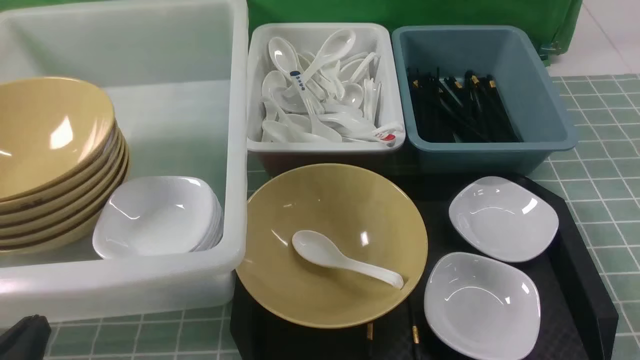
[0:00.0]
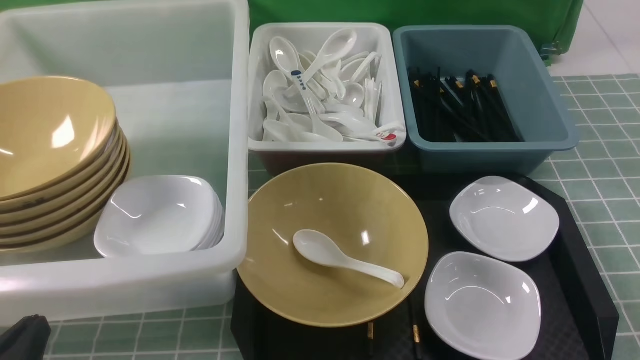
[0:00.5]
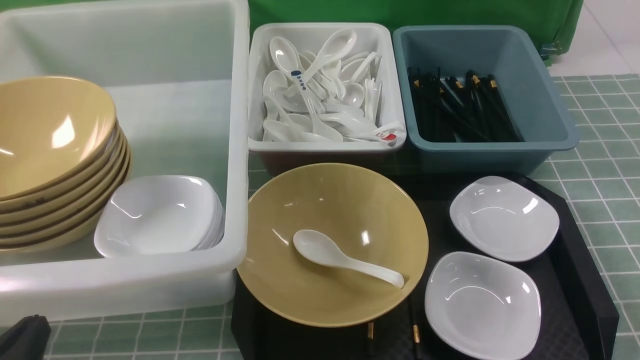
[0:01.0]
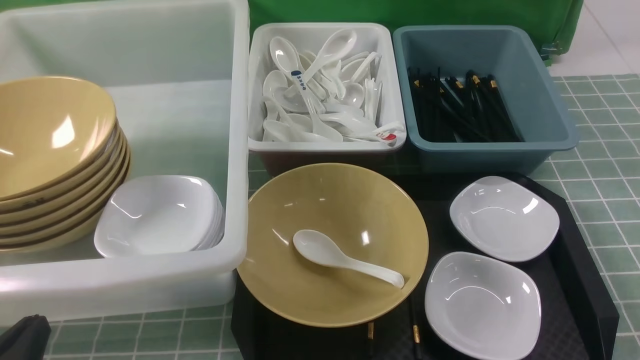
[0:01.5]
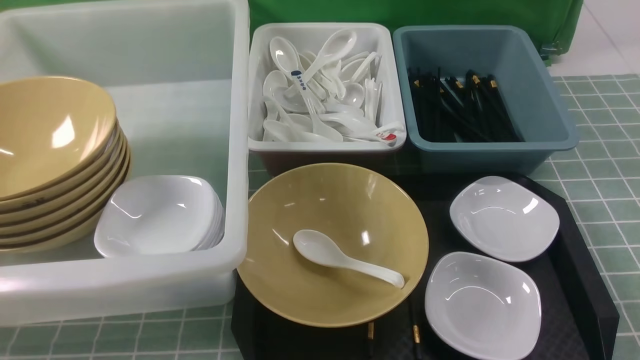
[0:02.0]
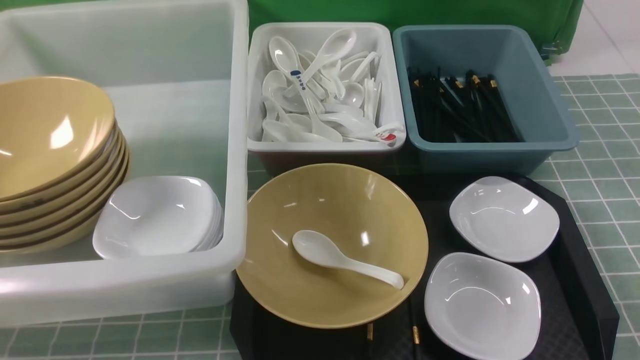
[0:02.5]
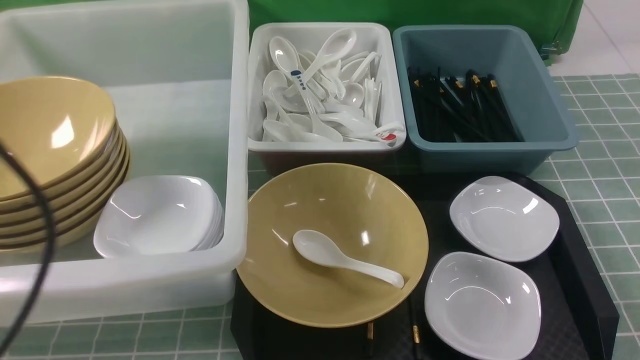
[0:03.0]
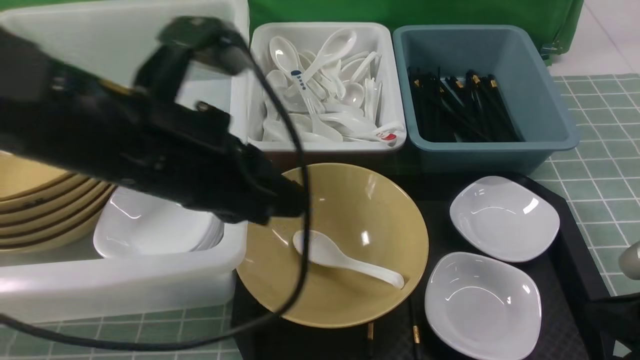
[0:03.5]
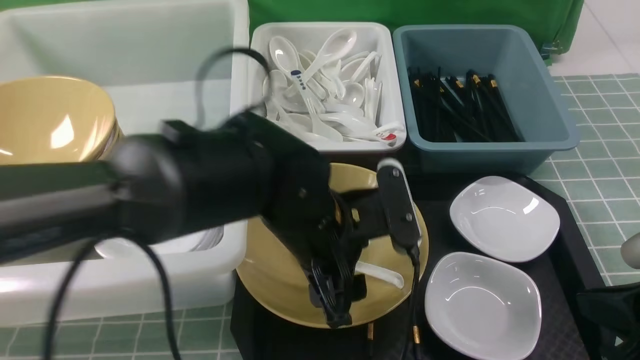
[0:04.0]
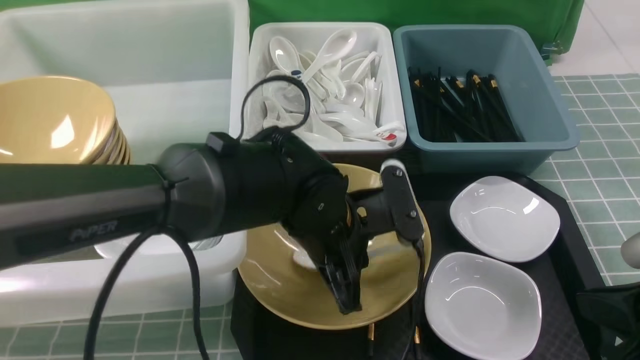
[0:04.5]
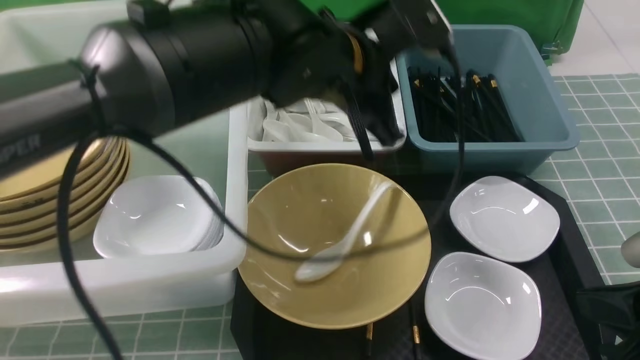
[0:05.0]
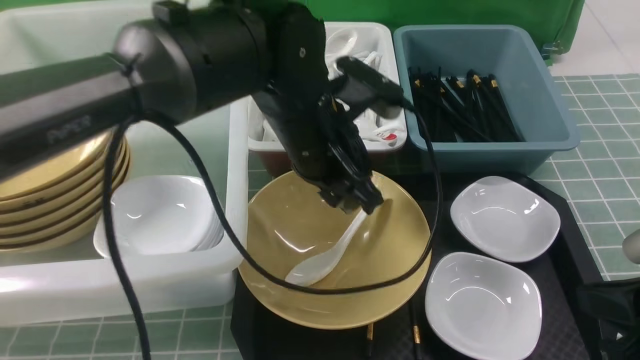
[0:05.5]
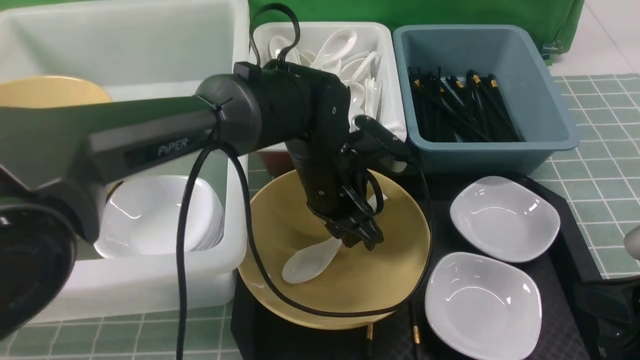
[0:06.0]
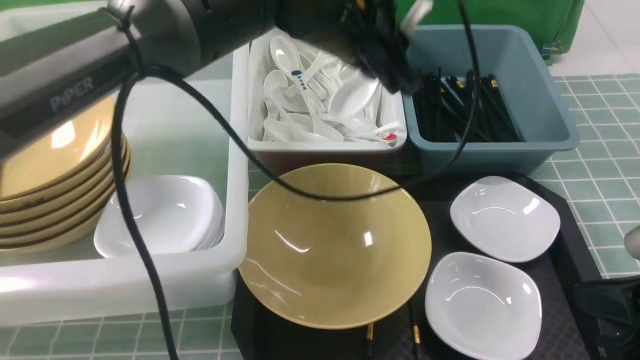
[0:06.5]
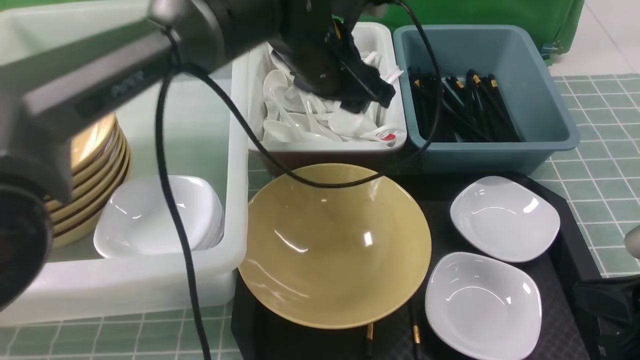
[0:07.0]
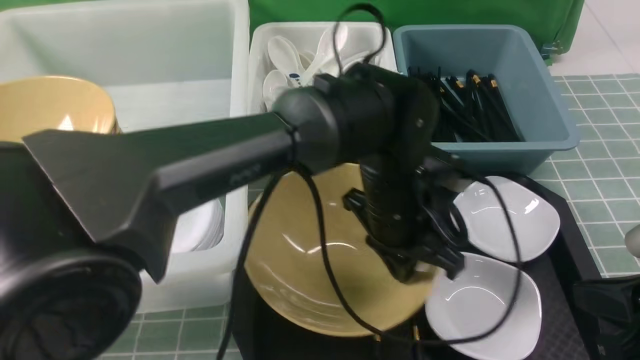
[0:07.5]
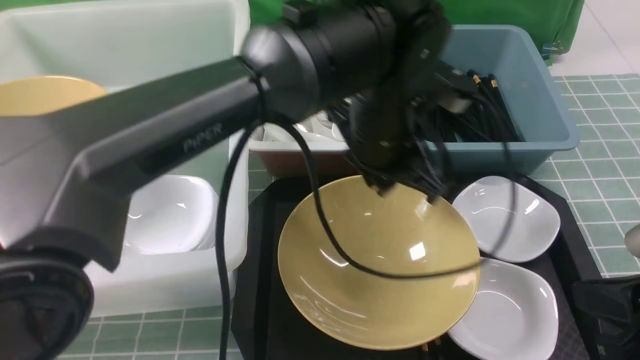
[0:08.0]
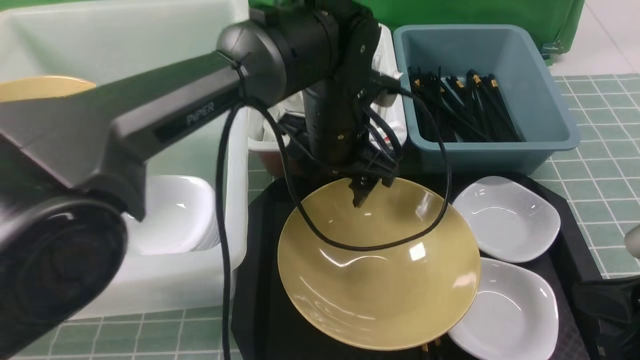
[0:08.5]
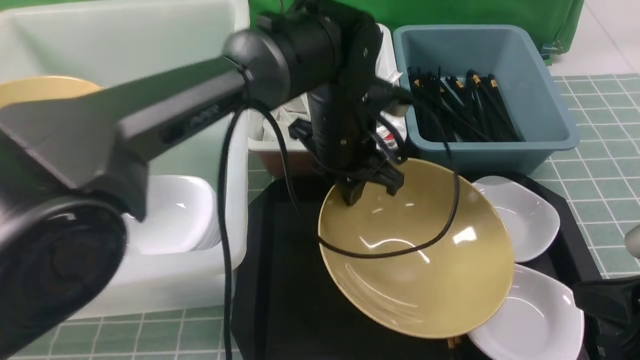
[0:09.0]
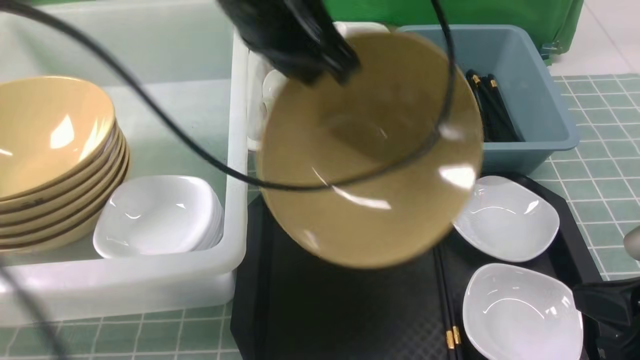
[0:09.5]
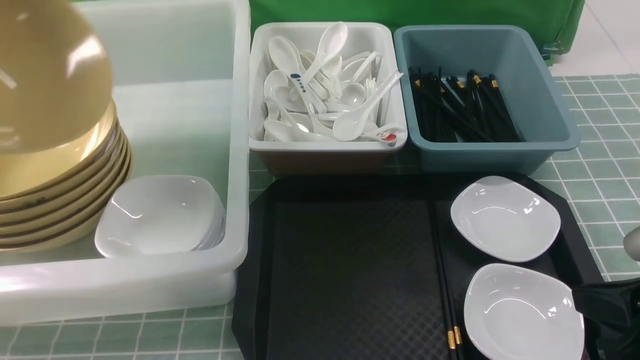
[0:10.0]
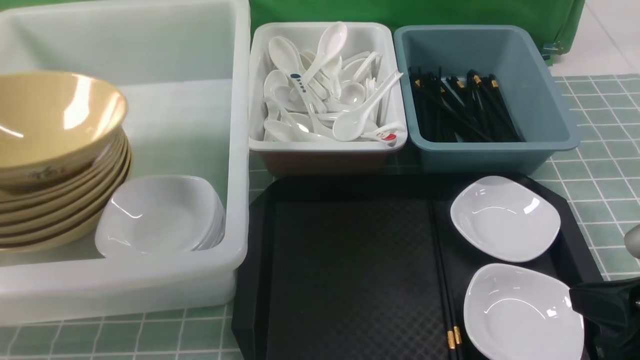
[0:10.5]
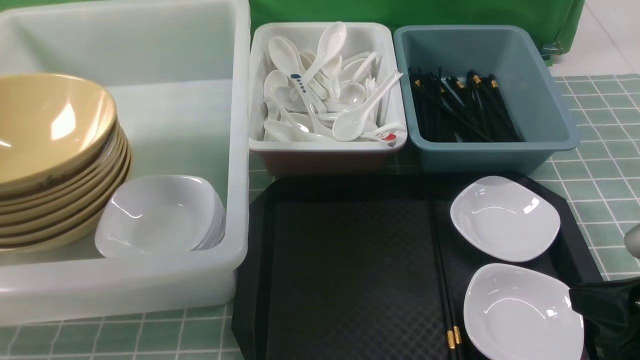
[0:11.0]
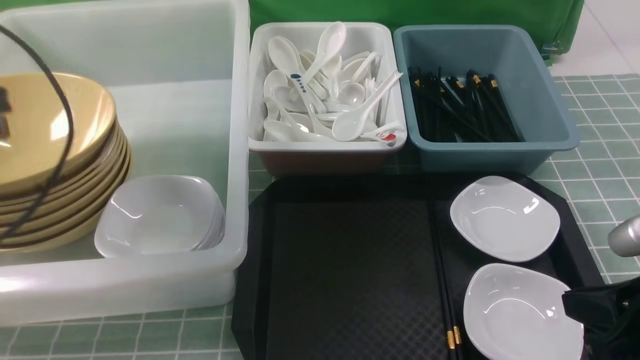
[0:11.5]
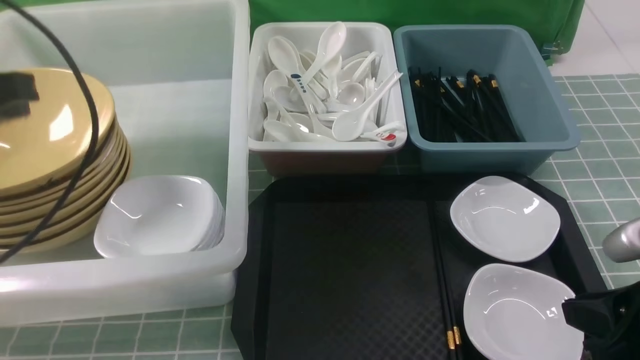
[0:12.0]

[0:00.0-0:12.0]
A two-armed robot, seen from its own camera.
Task of the whole recording: on blue table put chopsticks spoon bowls plates into blue grey white boxes.
Step, 0:00.0 to 0:06.0: use the left arm to grab the soup spoon in the middle.
Step, 0:06.5 to 0:07.0: use the left arm to put the soup spoon into the small storage box in the middle.
Step, 0:07.5 to 0:09.0: use the left arm to grab the yellow noodle bowl on the left.
Step, 0:09.5 to 0:10.5: use the left arm to put the noodle bowl into the large storage box on the left.
0:00.0 to 0:02.0: Both grippers travel together upward, approximately 5 cm.
0:02.0 to 0:04.0: The left gripper moves to the right and forward, roughly 30 cm, and opens its fingers. The right gripper travels forward by about 10 cm.
0:04.0 to 0:06.0: The left gripper is displaced forward by approximately 10 cm, reaches some 10 cm upward, then returns, and closes its fingers.
0:06.0 to 0:08.0: The left gripper goes up and down, about 10 cm each way, reversing 2 times.
0:08.0 to 0:10.0: The left gripper heads to the left, covering some 40 cm, and closes up.
0:10.0 to 0:12.0: The left gripper is displaced to the right, backward and downward by approximately 10 cm, and opens, then closes once more; the right gripper opens up.

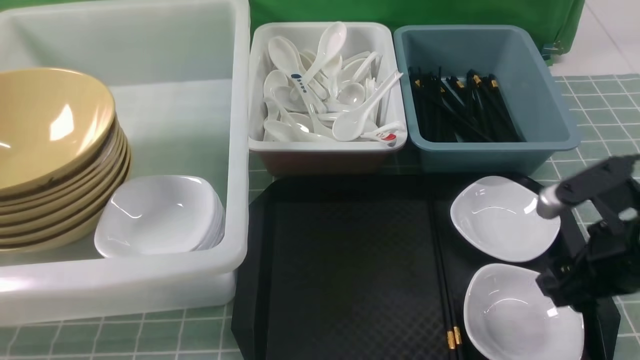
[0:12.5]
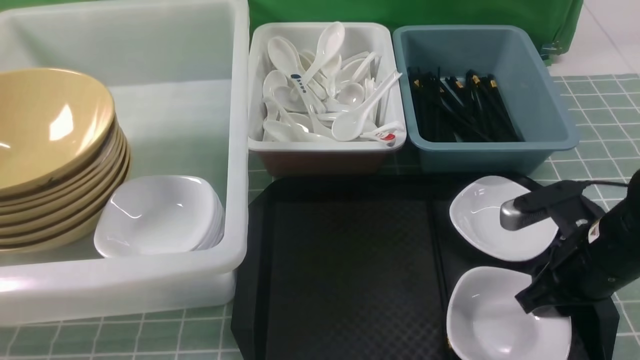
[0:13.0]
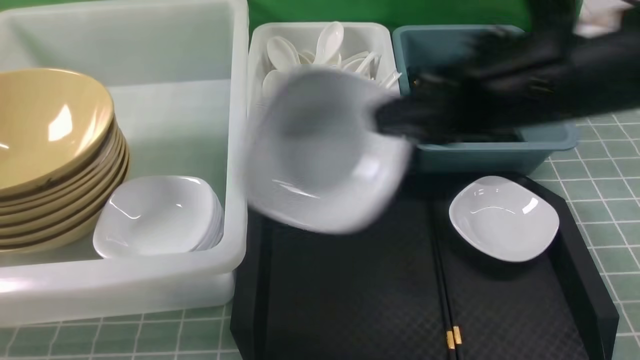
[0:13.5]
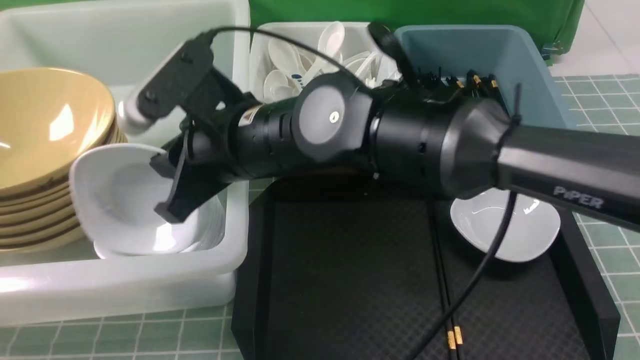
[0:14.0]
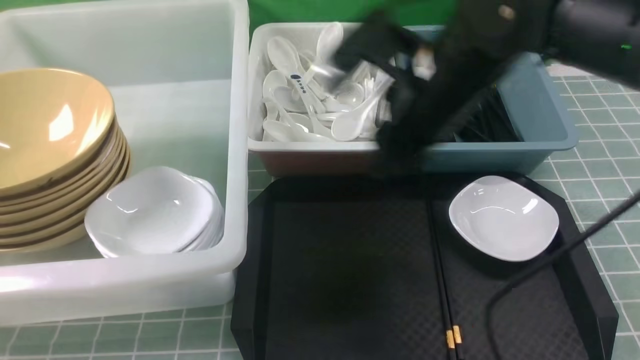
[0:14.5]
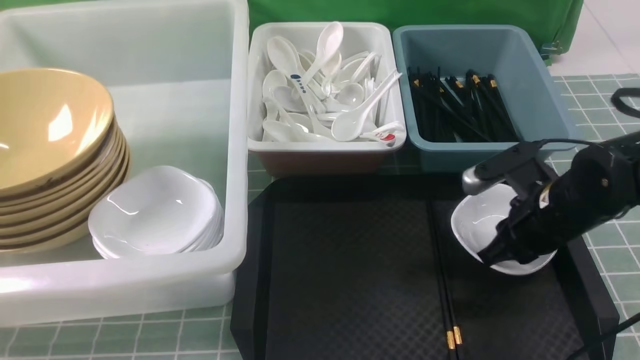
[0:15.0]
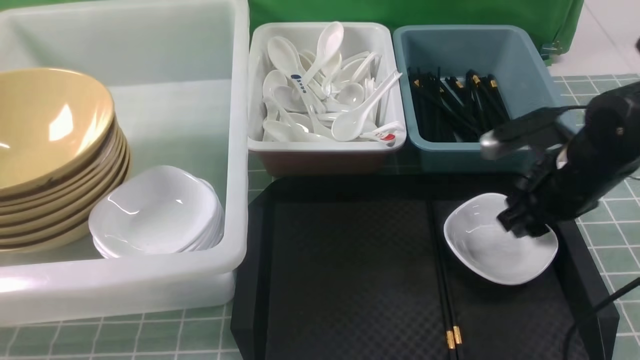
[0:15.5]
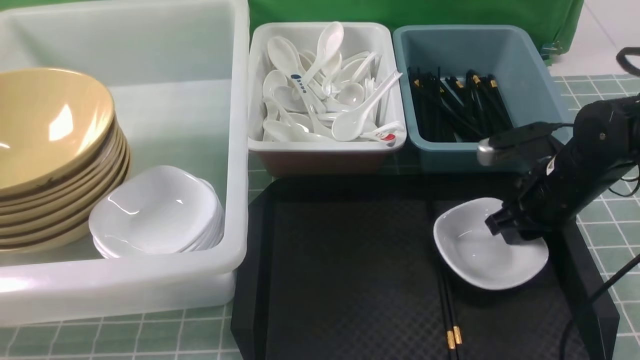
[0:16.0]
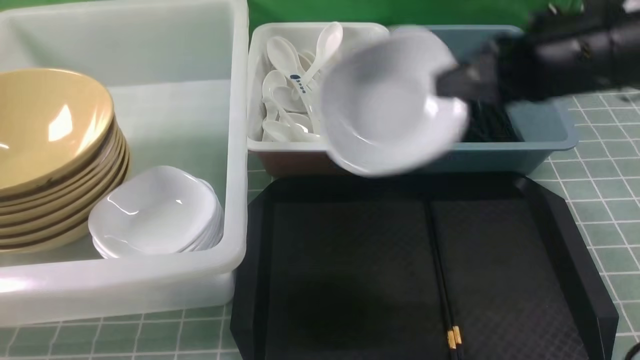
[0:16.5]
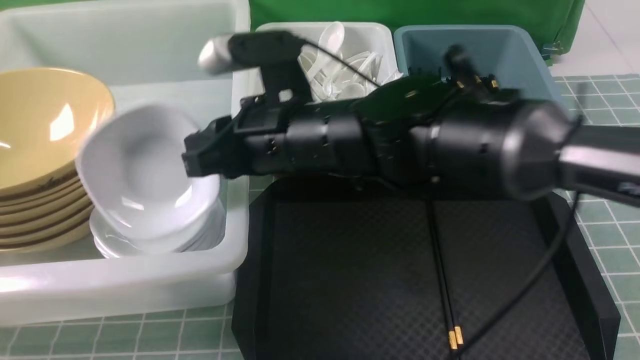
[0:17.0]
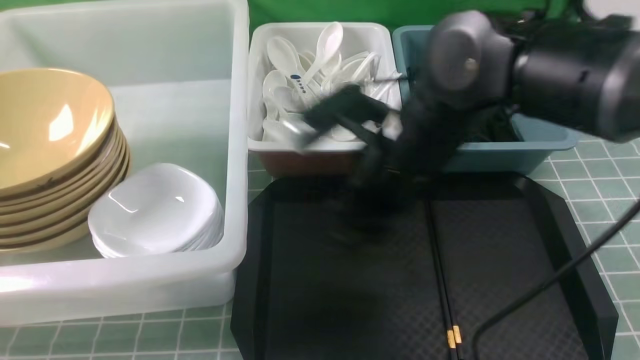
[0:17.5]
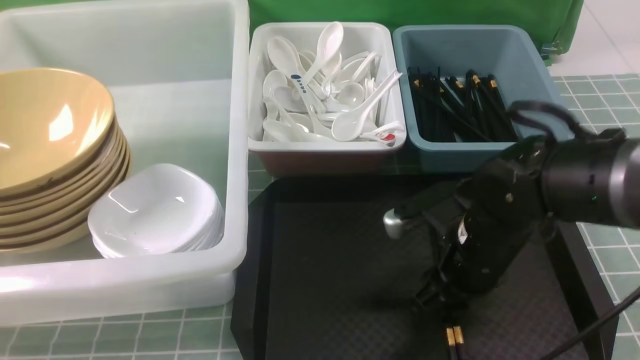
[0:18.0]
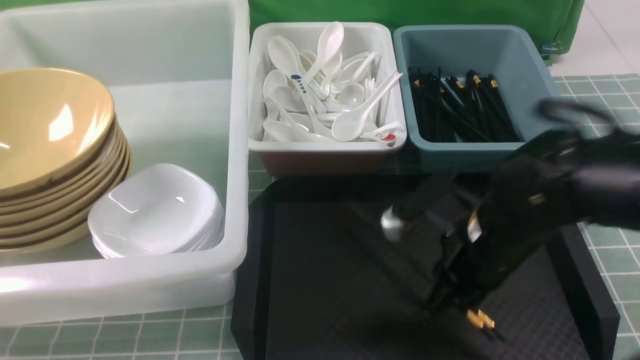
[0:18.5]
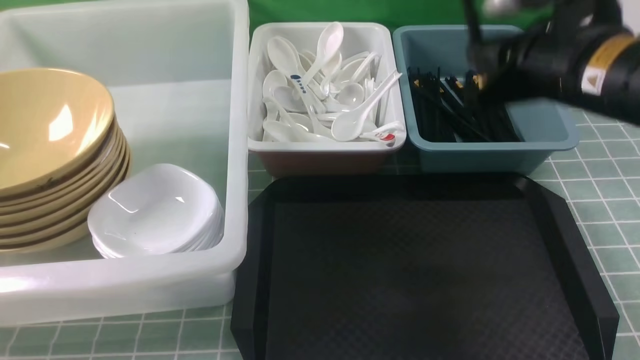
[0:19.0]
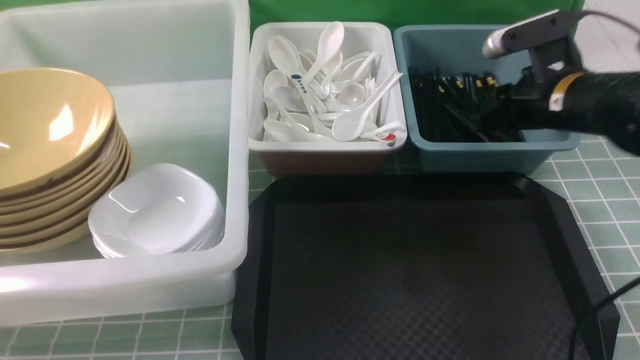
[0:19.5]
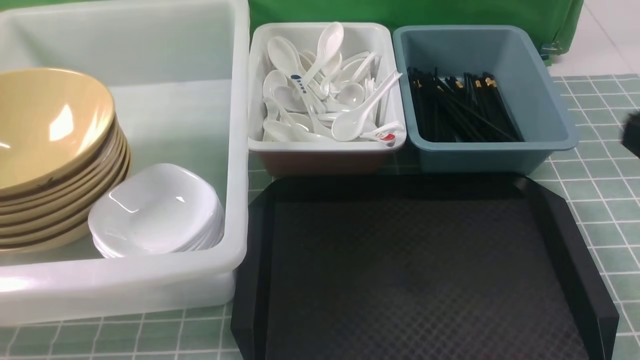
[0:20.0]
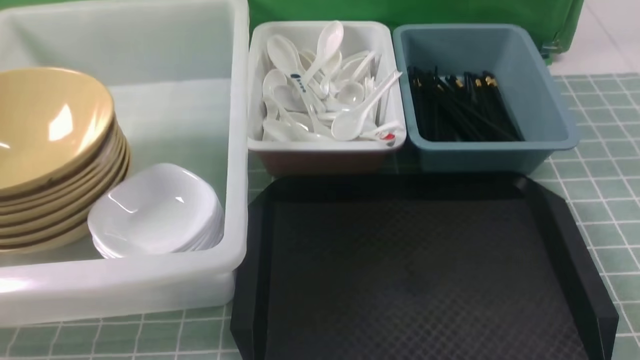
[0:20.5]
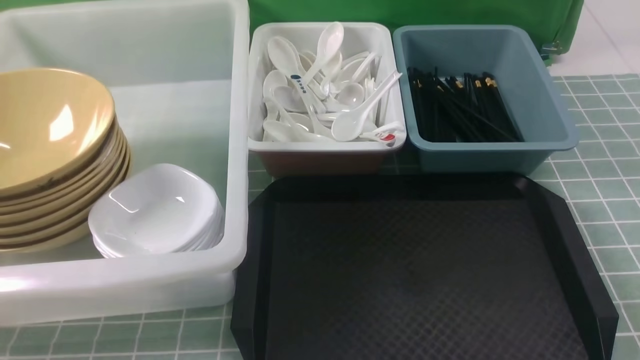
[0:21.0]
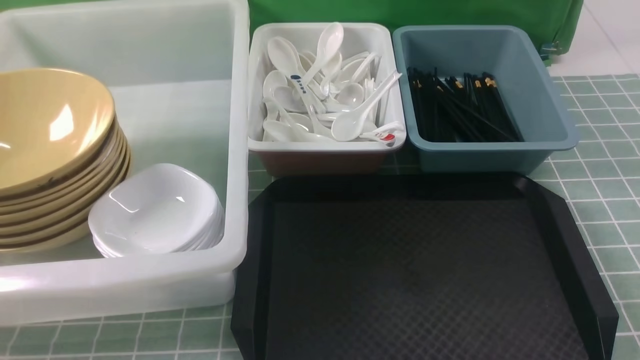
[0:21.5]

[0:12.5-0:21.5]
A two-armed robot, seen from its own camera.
Task of the whole recording: on blue table put chopsticks spoon bowls plates into blue grey white boxes.
Step, 0:13.5 to 0:14.0: use the right arm to put the plate into the large storage box on the left.
Step, 0:14.5 to 0:16.0: use the right arm to grab the plate.
Step, 0:16.5 to 0:17.0: use the right arm to put the plate into the large storage box on the left.
Step, 0:17.5 to 0:18.5: use the right arm to grab the chopsticks.
Step, 0:19.0 to 0:19.5: use the right arm to put the chopsticks into the small storage box on the right.
0:12.5 to 0:14.5: The left gripper travels downward by roughly 5 cm, while the right gripper travels to the left, forward and upward by approximately 20 cm, and closes its fingers.
0:14.5 to 0:17.0: The right gripper travels to the left by about 10 cm, and opens, then closes once more.
0:17.0 to 0:19.5: The right gripper shifts some 25 cm to the right, and opens, then closes once more.
0:19.5 to 0:21.5: The right gripper heads backward, covering about 30 cm, and closes.
